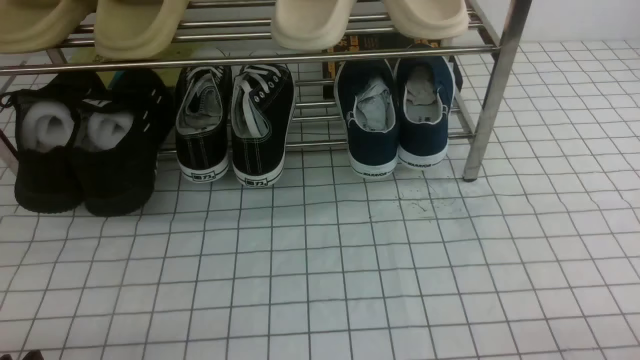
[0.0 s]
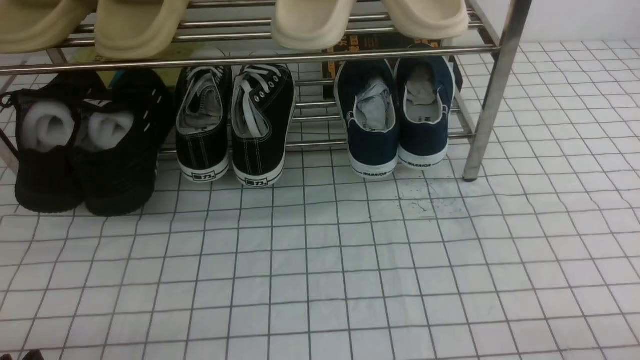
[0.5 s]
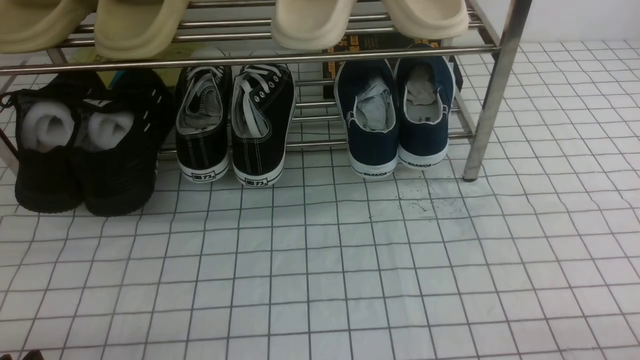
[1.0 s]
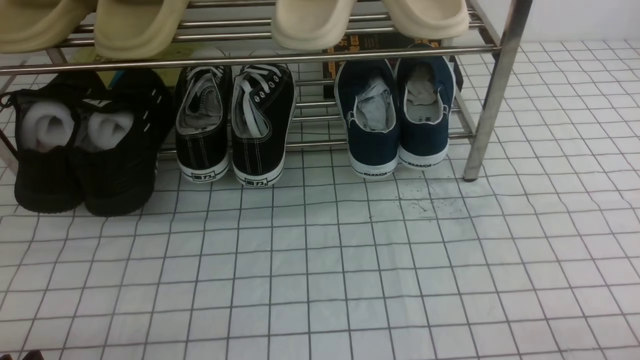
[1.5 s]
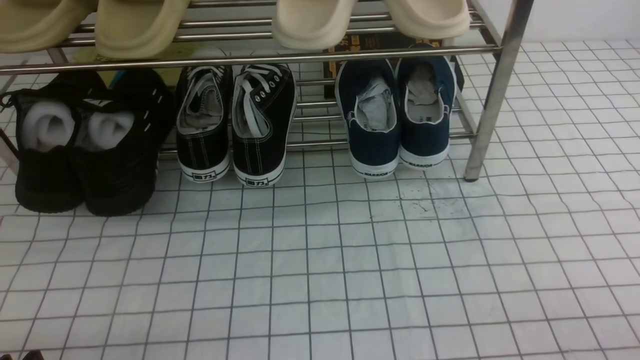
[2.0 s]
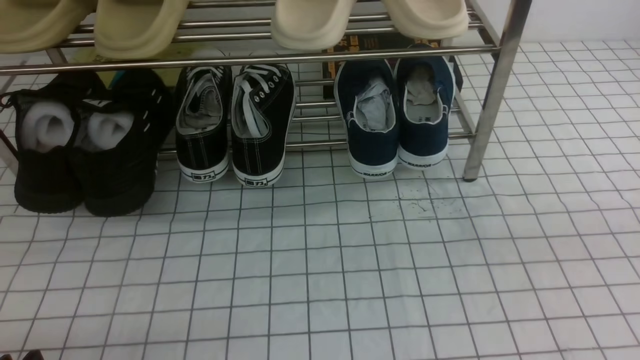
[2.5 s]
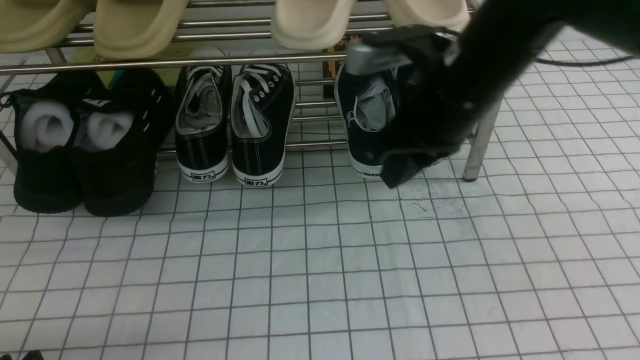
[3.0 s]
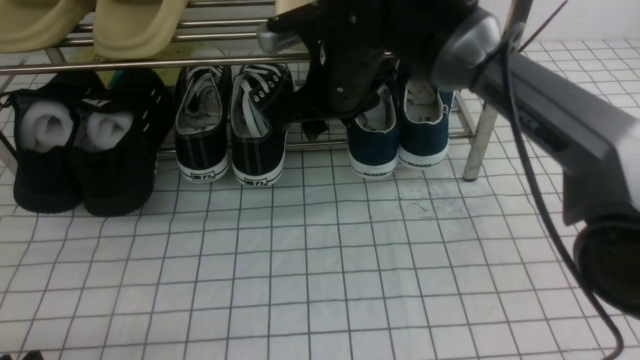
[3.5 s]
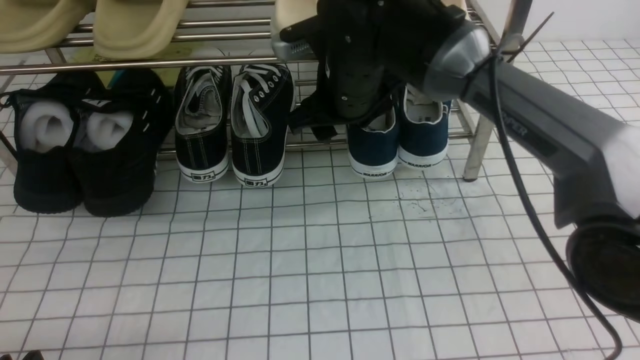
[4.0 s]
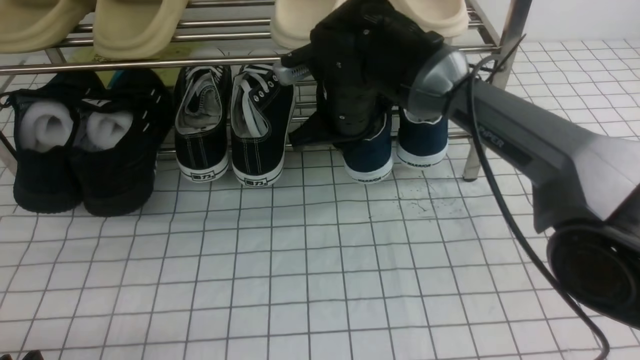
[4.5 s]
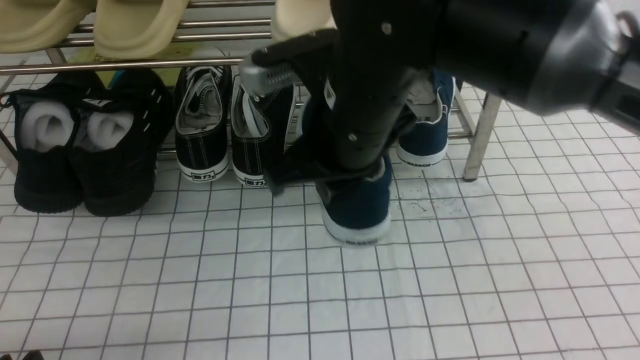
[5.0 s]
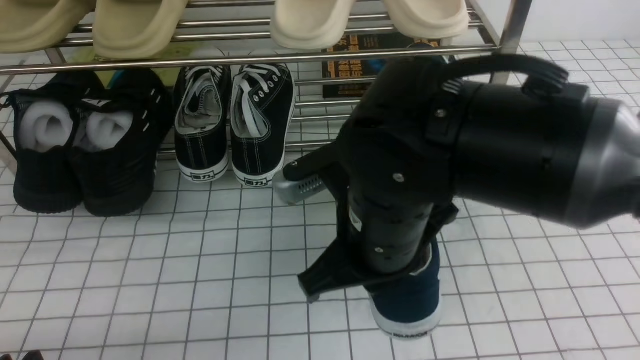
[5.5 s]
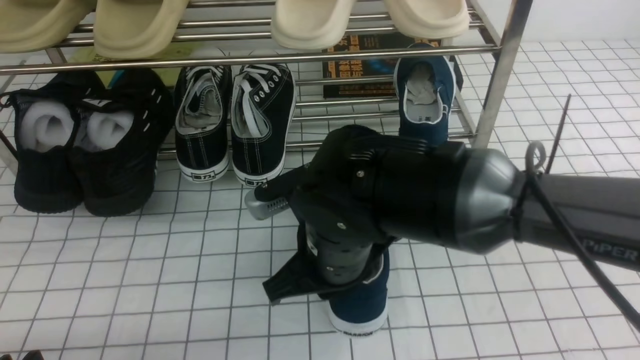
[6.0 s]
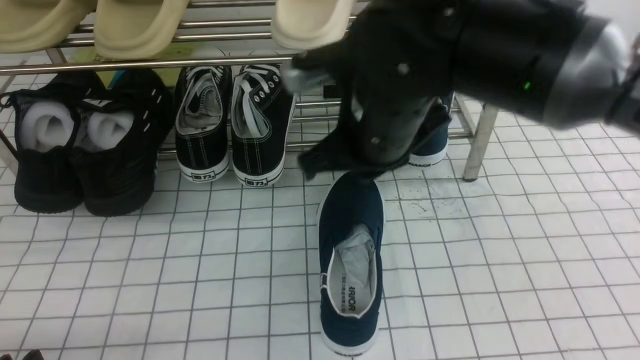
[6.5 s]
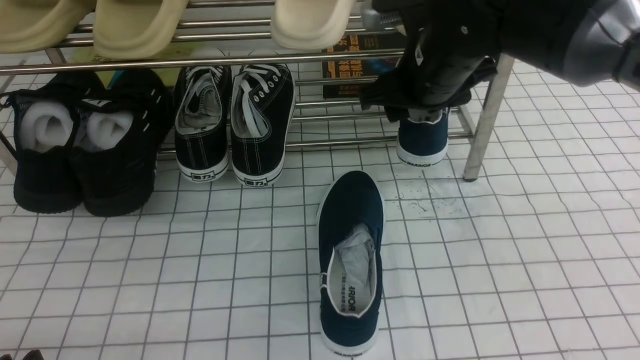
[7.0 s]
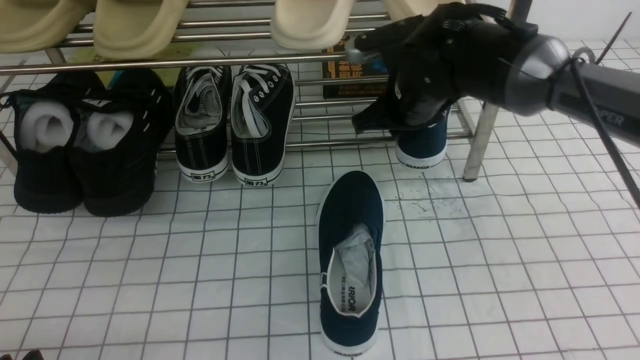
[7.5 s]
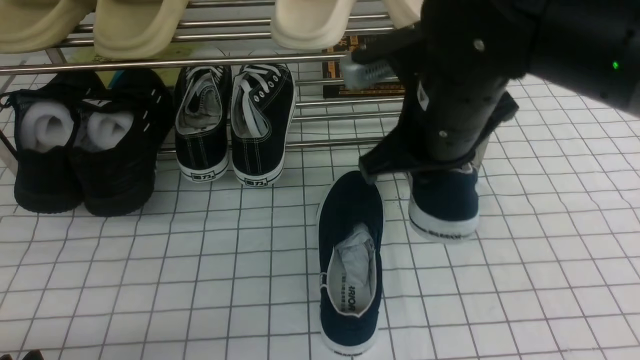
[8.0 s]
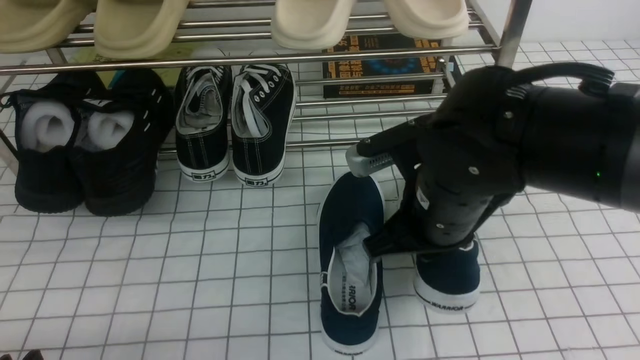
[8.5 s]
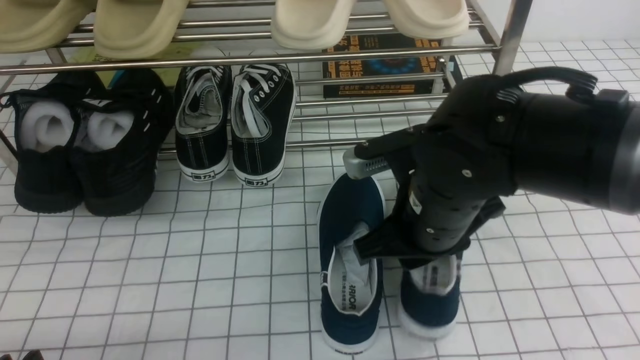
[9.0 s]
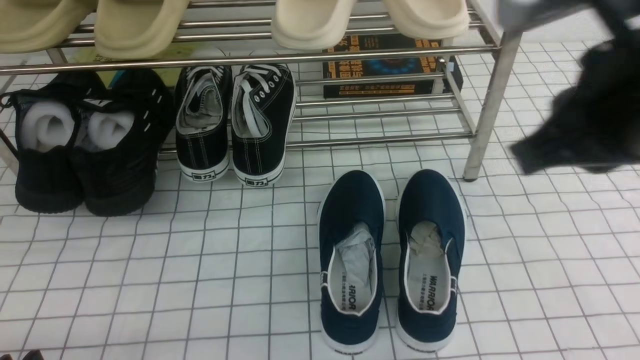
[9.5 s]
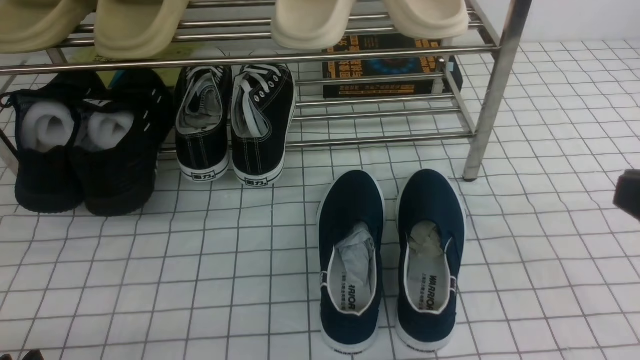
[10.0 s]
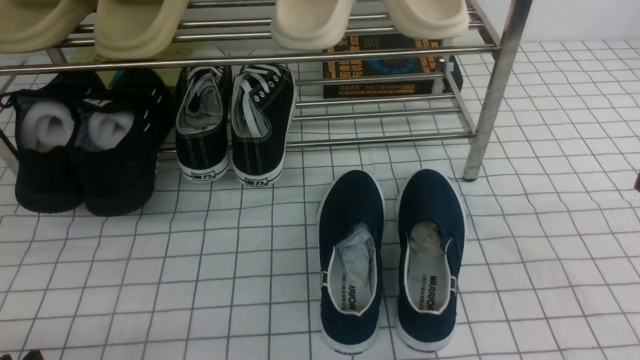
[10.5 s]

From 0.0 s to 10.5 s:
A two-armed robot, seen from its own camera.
Step, from 0.0 s to 4.0 s: use the right arm to clamp a shoe on the right side of the shoe rack.
Step, from 4.5 s to 6.0 s: use the right arm to take out the clamped shoe from the shoe rack and put it down.
Step, from 6.5 s to 7.5 s: use the right arm to clamp a shoe on the right side of the shoe rack.
Step, from 8.0 s to 9.0 s: use the right arm to take out the clamped shoe from the shoe rack and put it down.
From 0.0 s to 2.0 s: The right gripper heads upward, covering roughly 5 cm.
From 2.0 s to 4.0 s: The right gripper heads forward and to the left, covering about 50 cm, and opens.
From 4.0 s to 6.5 s: The right gripper travels backward by about 10 cm, and closes its fingers.
From 6.5 s to 8.5 s: The right gripper reaches some 10 cm forward, then returns, and opens, then closes again.
From 8.5 s to 10.5 s: The right gripper moves backward, to the right and upward, approximately 25 cm.

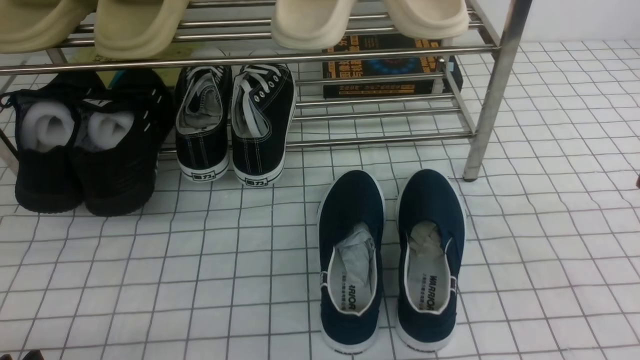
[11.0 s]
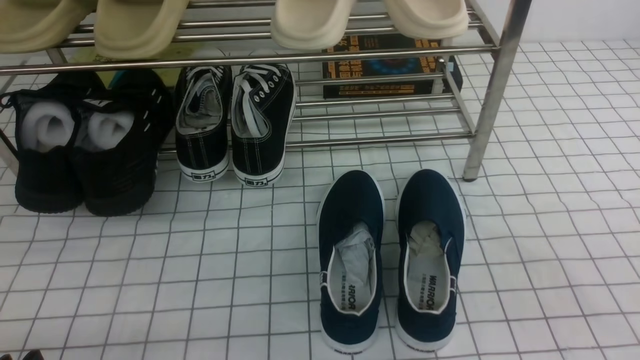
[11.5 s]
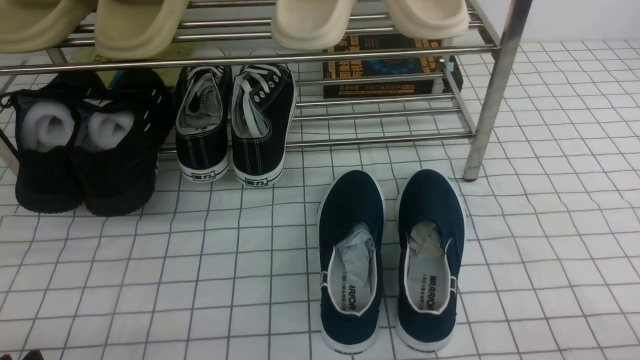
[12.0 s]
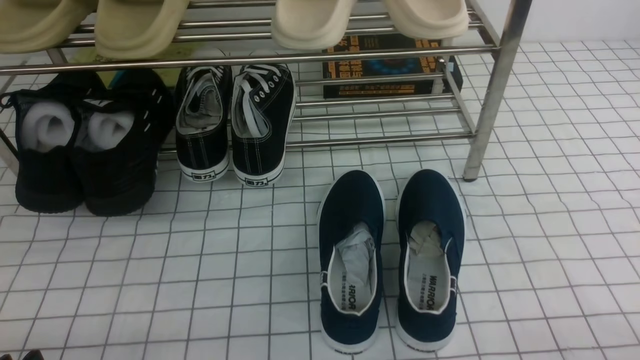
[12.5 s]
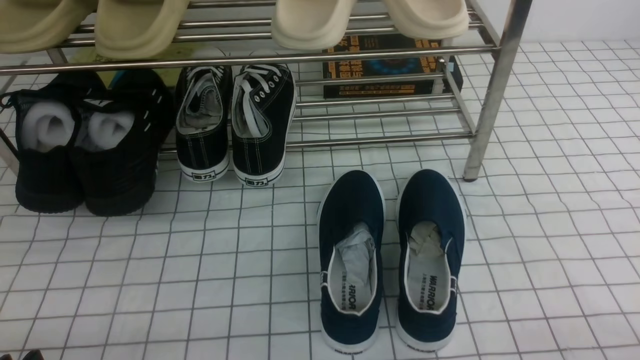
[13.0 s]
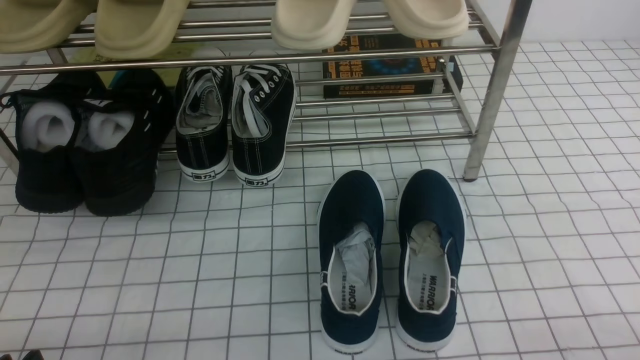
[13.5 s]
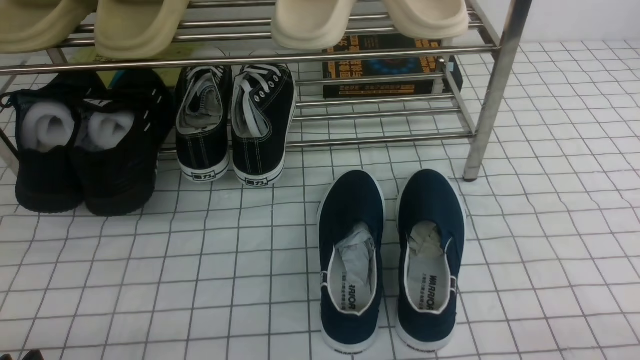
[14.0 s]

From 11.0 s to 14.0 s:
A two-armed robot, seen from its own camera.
From 12.5 s to 14.0 s: Both grippers stay put.

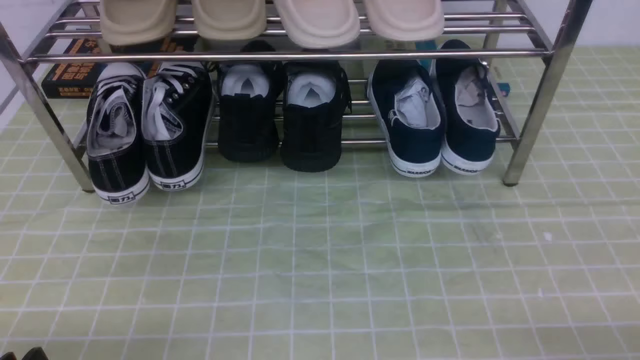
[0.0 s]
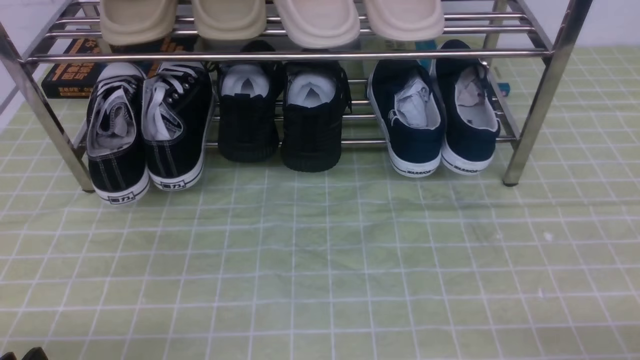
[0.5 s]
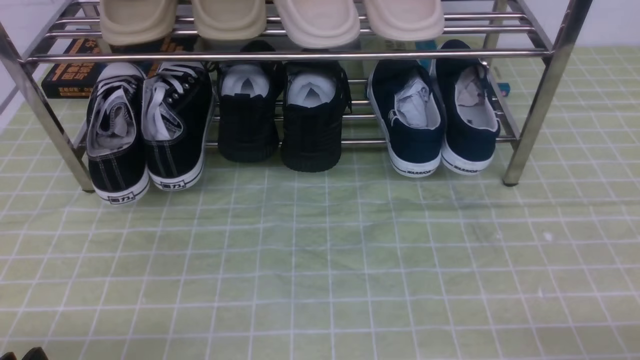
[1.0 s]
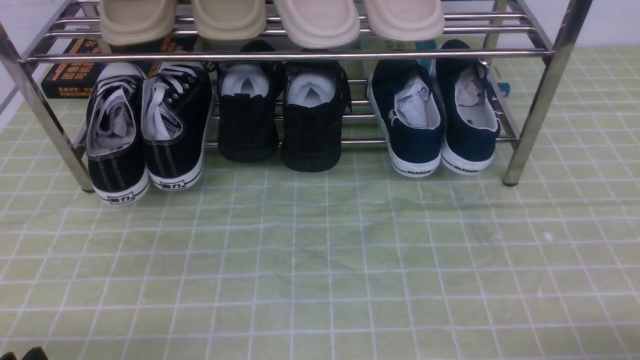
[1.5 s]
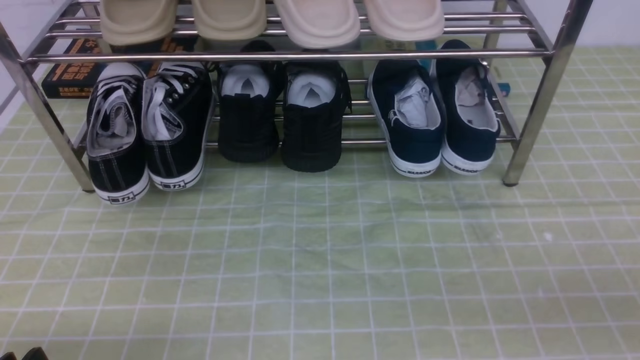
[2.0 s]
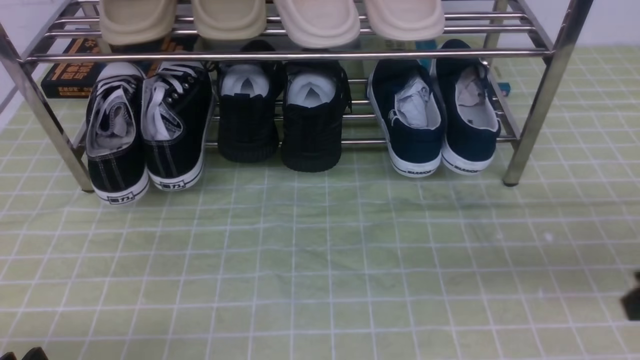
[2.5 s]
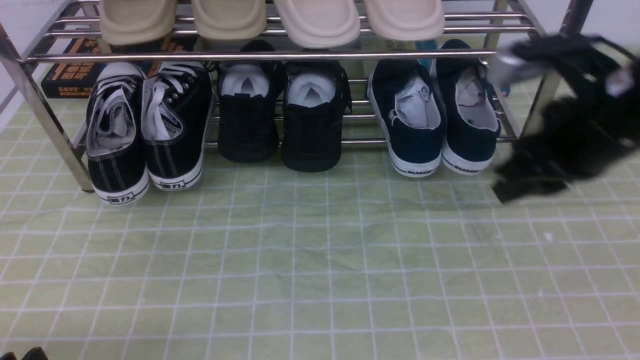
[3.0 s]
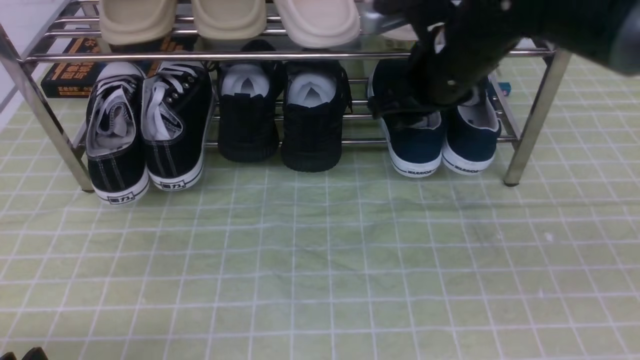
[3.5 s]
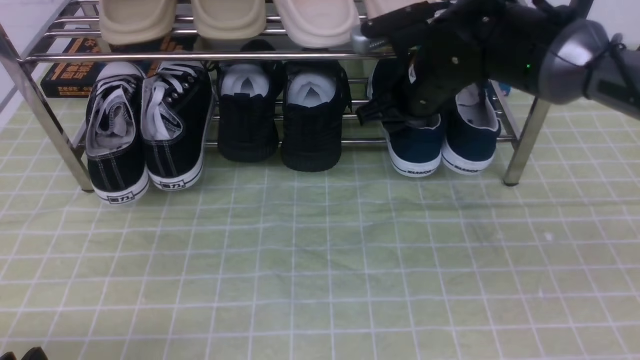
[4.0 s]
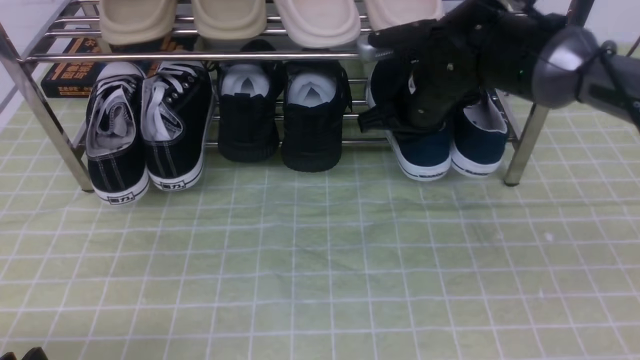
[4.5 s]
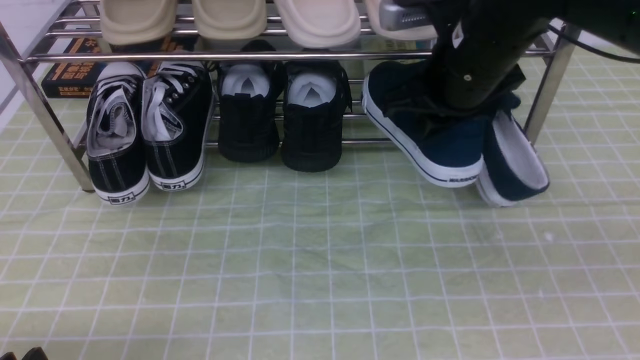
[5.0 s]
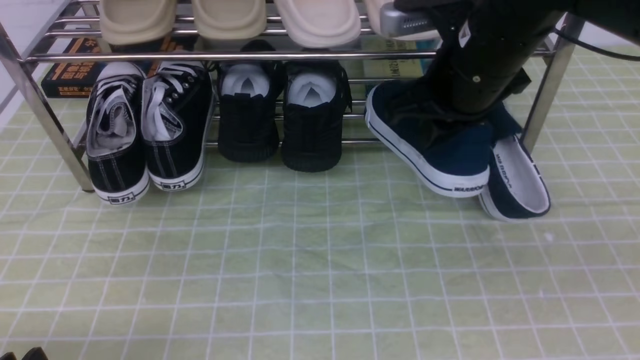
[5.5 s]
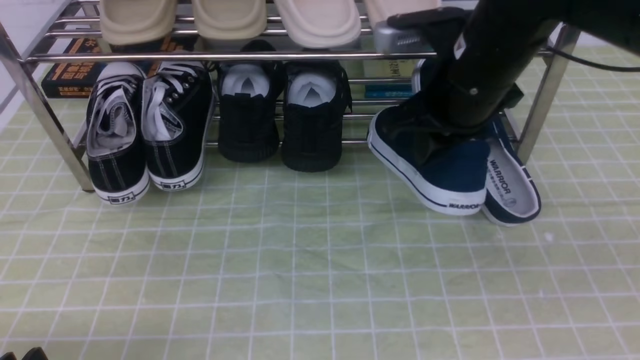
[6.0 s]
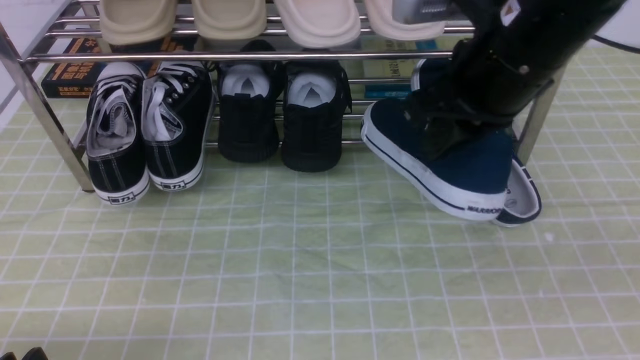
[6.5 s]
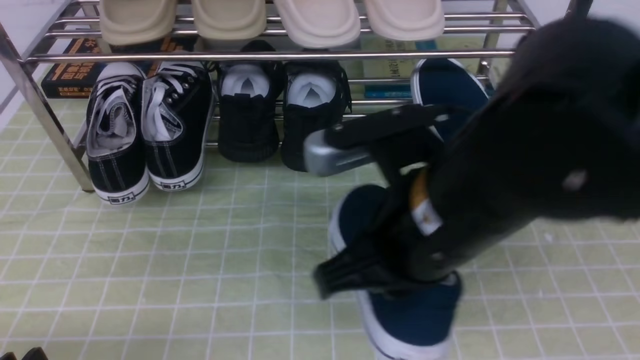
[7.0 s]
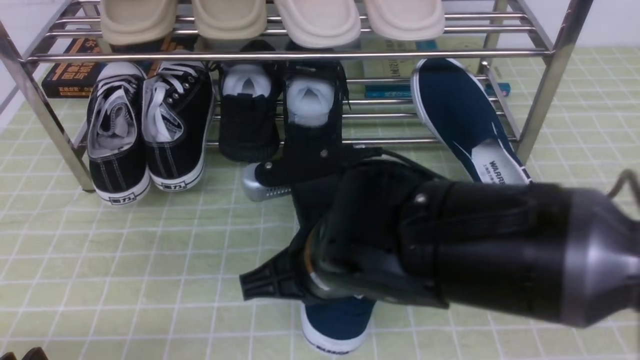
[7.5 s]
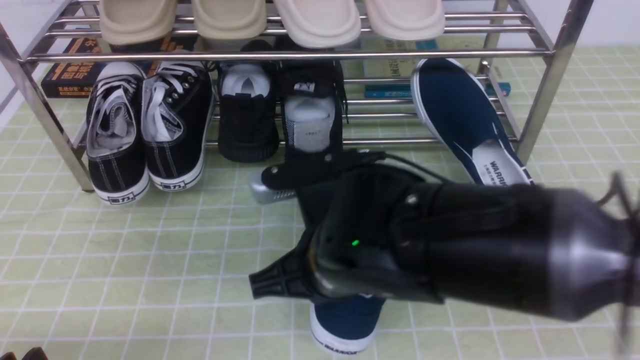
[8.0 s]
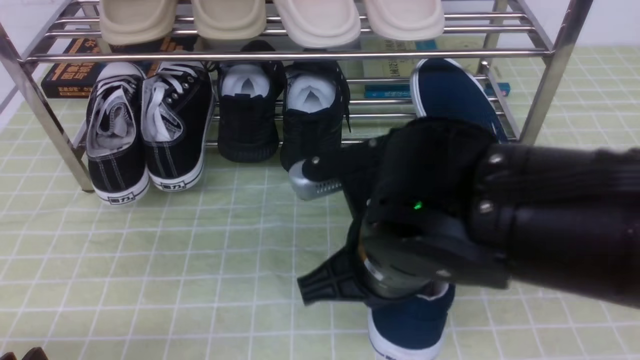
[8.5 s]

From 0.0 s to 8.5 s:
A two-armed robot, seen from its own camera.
Step, from 0.0 s to 4.5 s: use the right arm to clamp a shoe on the right side of the shoe rack.
From 0.0 s to 2.0 s: The right gripper travels upward by roughly 10 cm.
From 2.0 s to 4.0 s: The right gripper moves forward and to the left, about 40 cm, and opens up.
From 4.0 s to 6.5 s: The right gripper goes some 15 cm backward and upward, and closes up.
From 6.5 s to 8.5 s: The right gripper moves to the left, downward and backward, approximately 15 cm.
